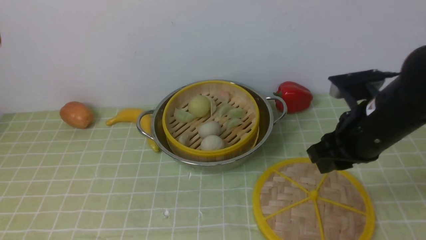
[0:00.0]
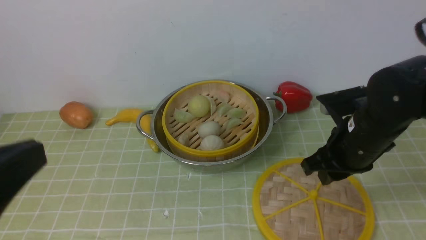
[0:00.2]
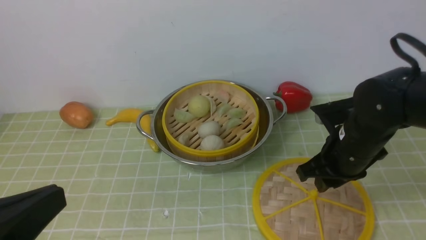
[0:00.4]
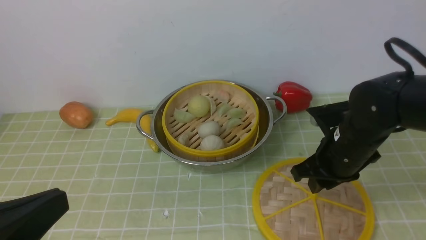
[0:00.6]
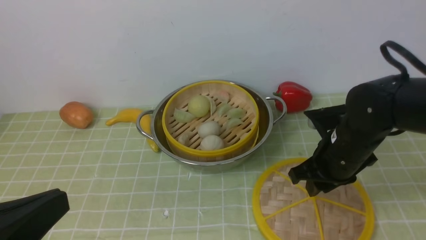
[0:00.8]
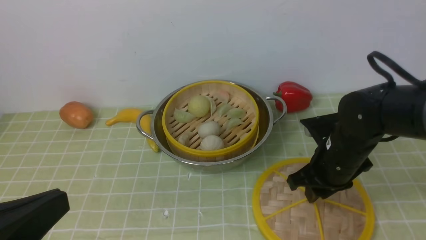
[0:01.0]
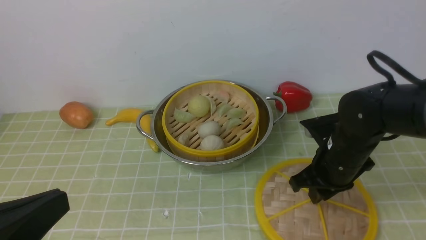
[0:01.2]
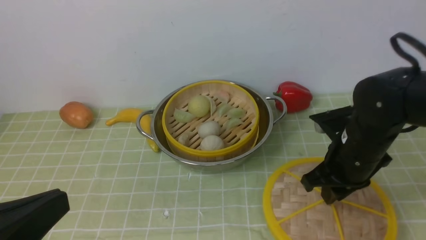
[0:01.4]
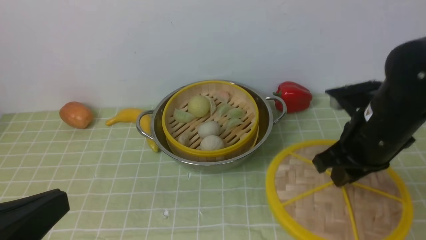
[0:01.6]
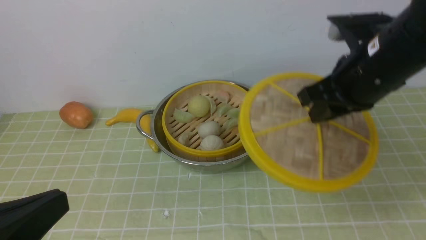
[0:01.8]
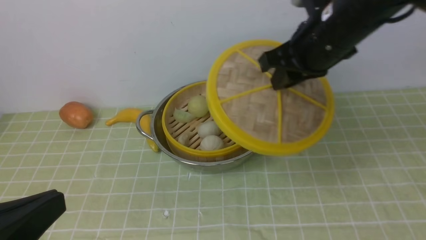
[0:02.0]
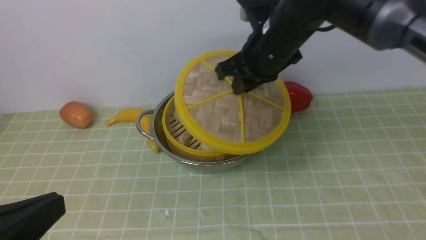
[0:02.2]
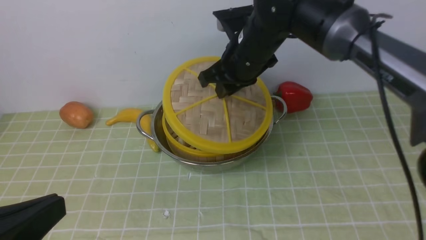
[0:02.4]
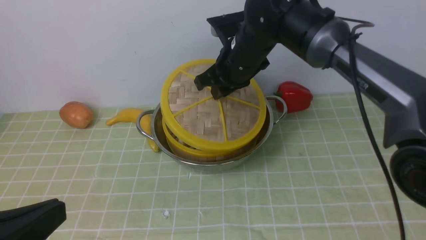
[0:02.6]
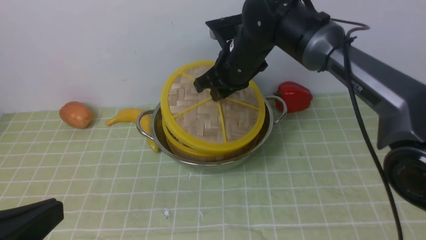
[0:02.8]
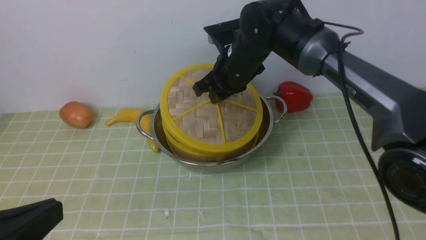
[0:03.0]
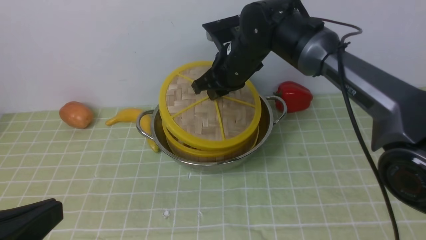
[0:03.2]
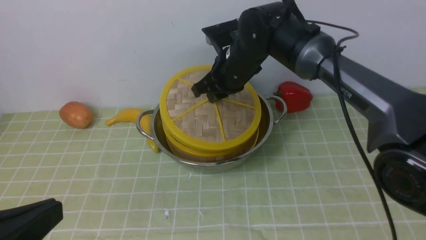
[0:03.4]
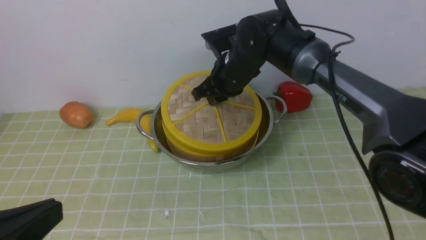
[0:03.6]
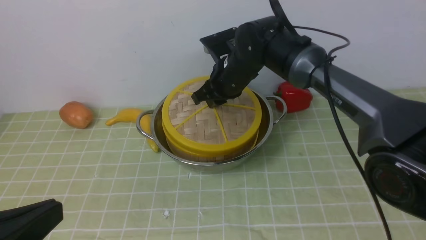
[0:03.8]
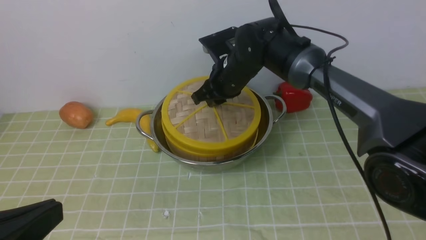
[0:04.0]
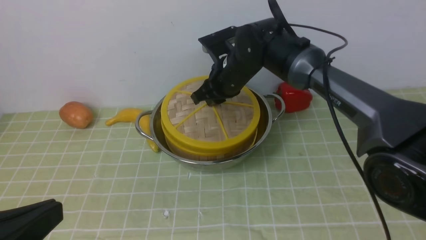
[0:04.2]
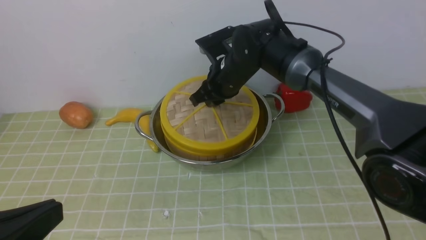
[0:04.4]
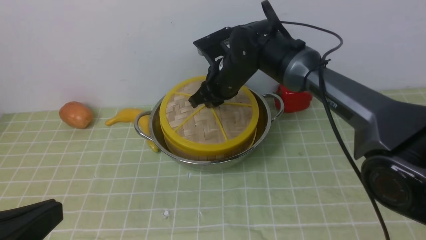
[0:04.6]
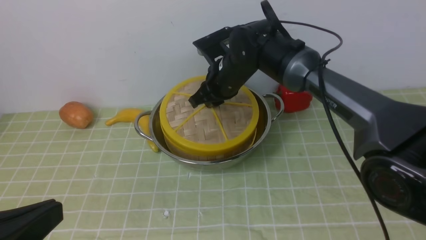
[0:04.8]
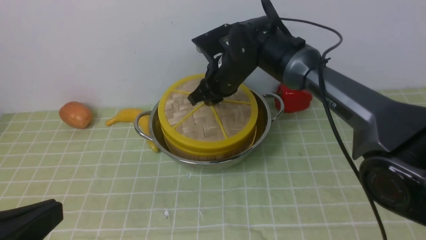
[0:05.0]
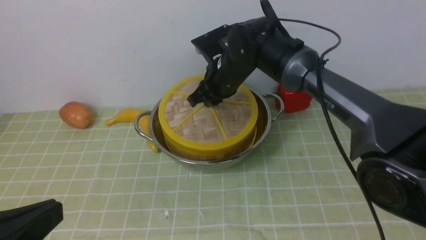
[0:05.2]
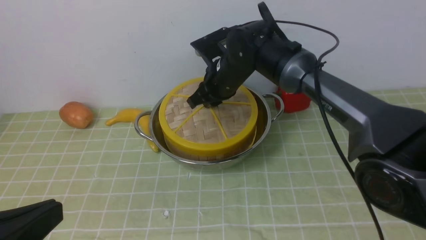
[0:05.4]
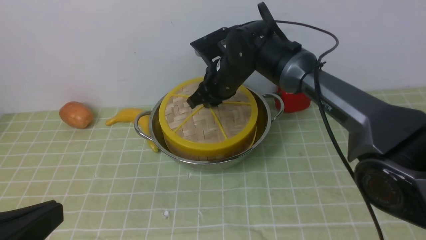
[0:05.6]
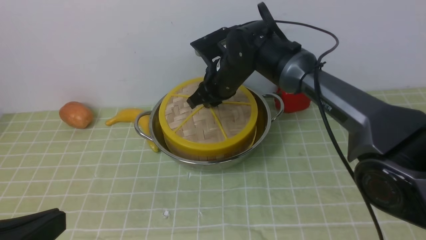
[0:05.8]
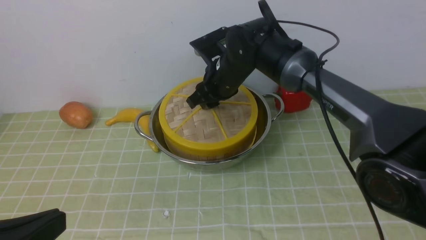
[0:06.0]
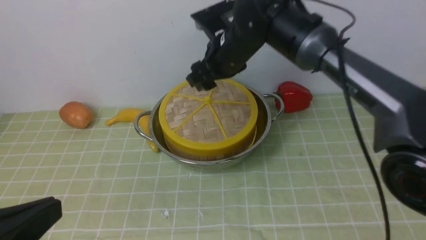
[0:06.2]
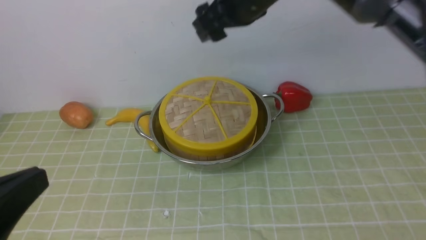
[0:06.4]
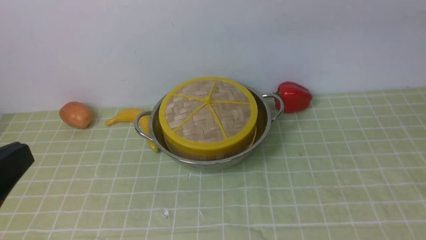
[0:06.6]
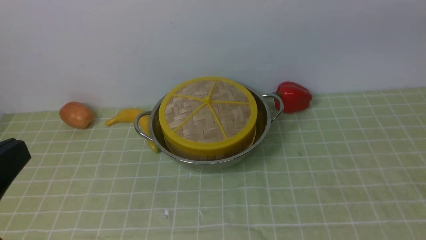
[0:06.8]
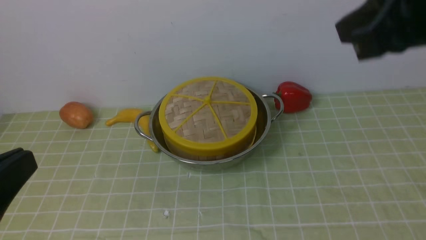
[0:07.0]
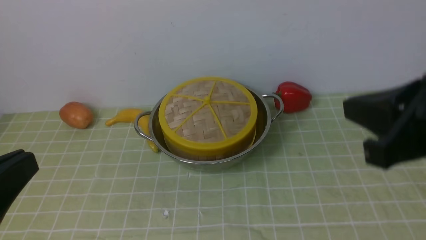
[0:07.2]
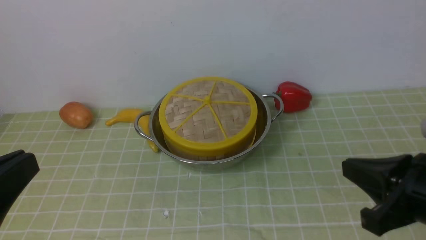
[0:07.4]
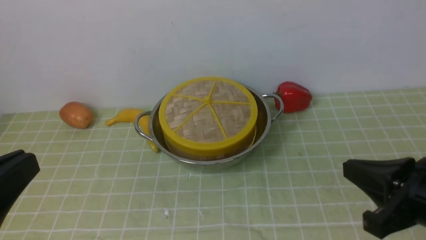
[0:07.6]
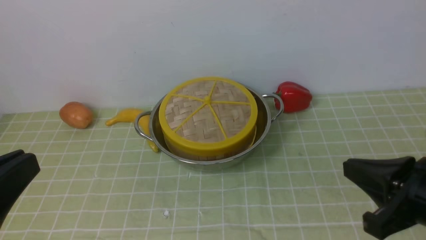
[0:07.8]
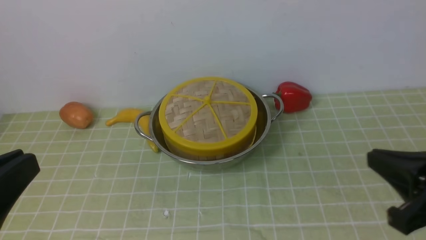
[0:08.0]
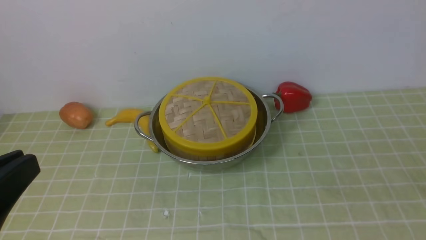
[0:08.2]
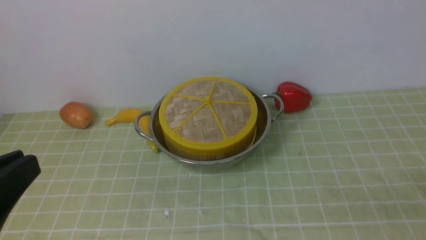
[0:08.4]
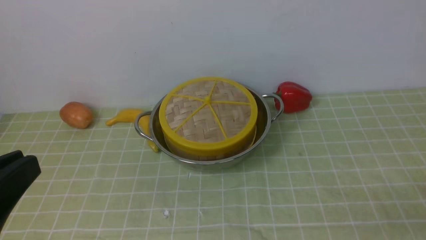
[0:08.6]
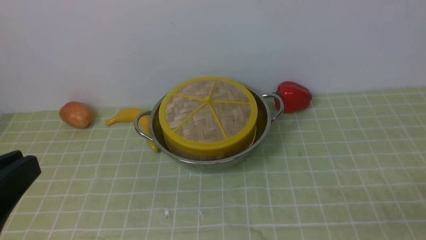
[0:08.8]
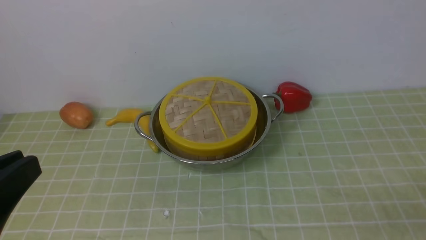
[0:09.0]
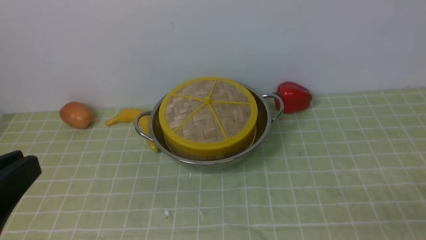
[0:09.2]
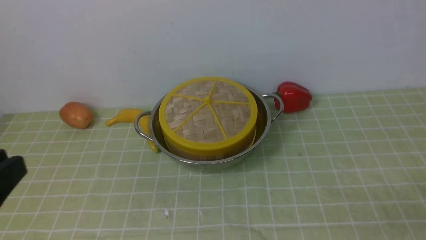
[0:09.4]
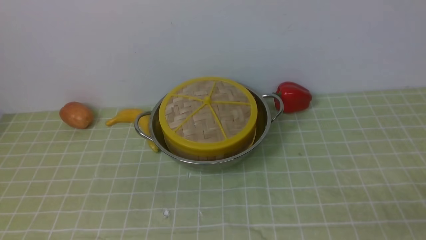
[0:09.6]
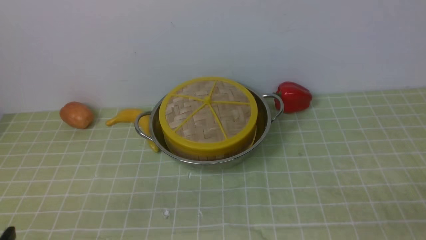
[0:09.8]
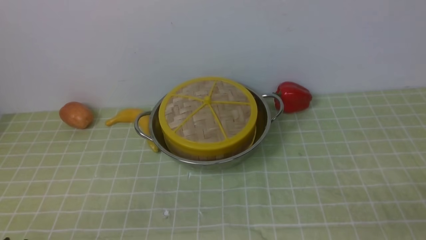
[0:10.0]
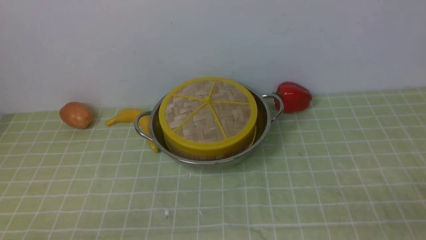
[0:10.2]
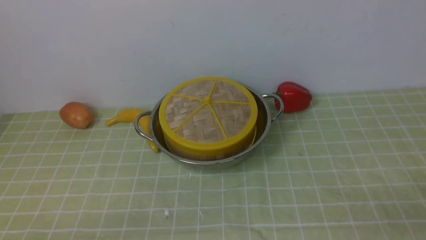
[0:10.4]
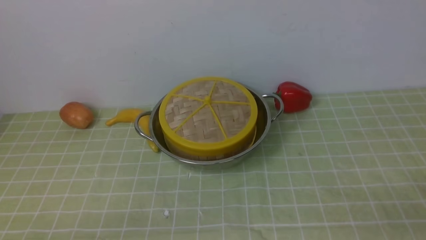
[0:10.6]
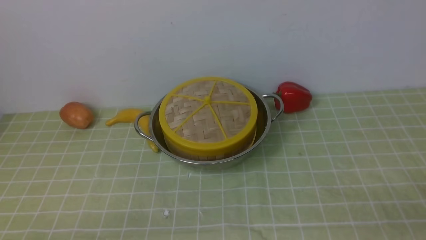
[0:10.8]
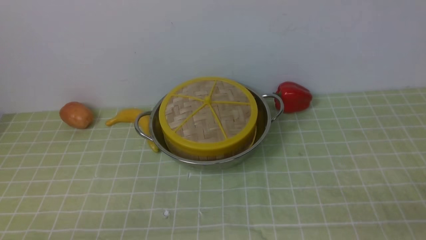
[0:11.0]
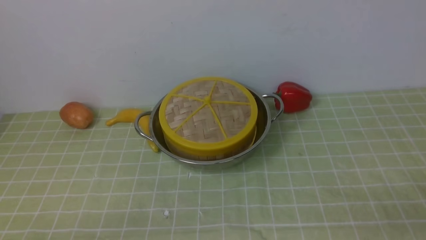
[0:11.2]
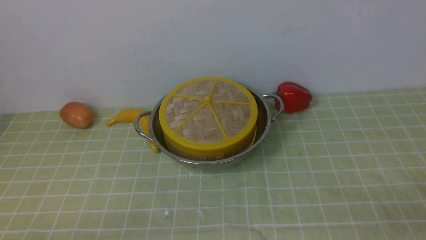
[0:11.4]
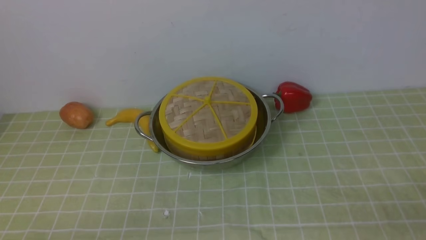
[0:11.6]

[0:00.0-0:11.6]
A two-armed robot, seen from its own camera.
Task of the whole recording: place the steamer in the pot on the green tablecloth, and put the lid on the steamer.
Step, 0:00.0 to 0:01.8: use the right arm to lift the lid of the steamer.
Step, 0:02.0 to 0:06.2: use the right arm to place the steamer lid on the steamer.
0:00.0 to 0:01.4: The left gripper moves downward, roughly 15 cm.
0:01.4 to 0:02.8: The right gripper is displaced to the left and forward by roughly 20 cm.
0:02.8 to 0:04.4: The grippers make only small movements.
0:04.4 to 0:05.8: Both grippers stay put.
0:05.8 to 0:07.2: The right gripper shifts about 35 cm backward, to the right and upward, and closes up.
0:07.2 to 0:08.8: The right gripper shifts about 20 cm downward, to the right and backward.
0:08.8 to 0:10.2: The left gripper goes about 15 cm downward.
0:10.2 to 0:11.6: The two grippers keep their place.
